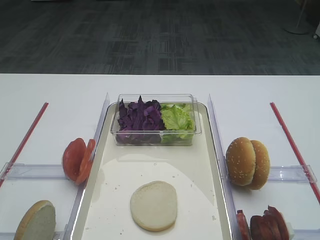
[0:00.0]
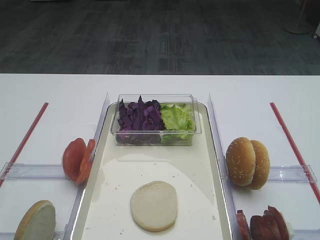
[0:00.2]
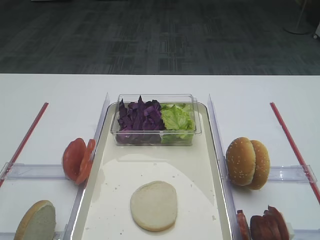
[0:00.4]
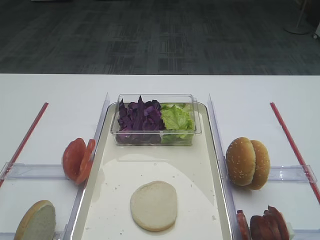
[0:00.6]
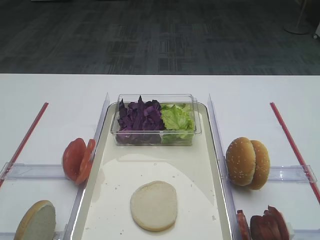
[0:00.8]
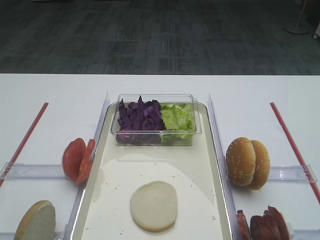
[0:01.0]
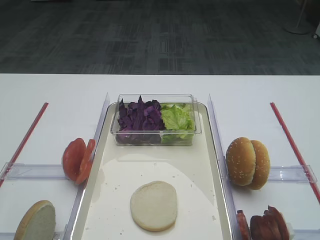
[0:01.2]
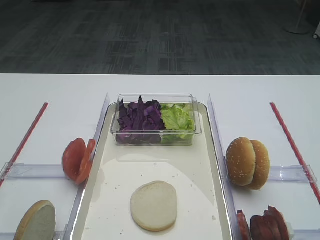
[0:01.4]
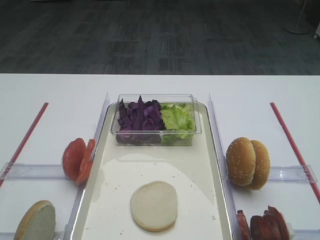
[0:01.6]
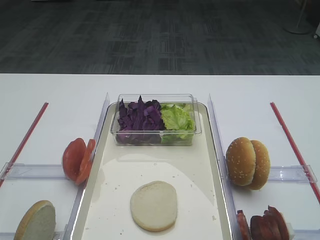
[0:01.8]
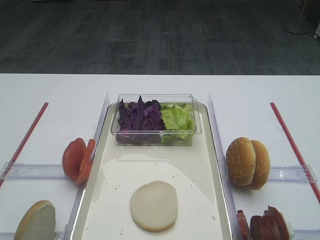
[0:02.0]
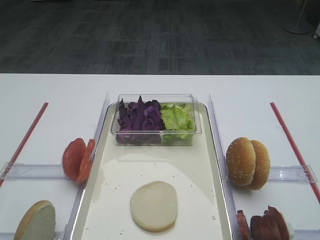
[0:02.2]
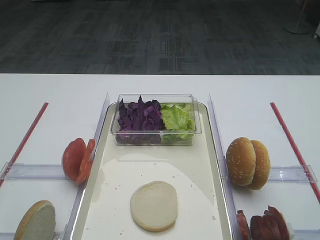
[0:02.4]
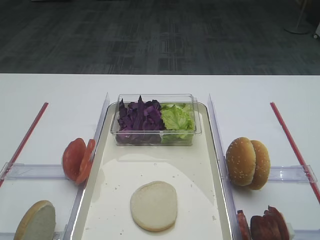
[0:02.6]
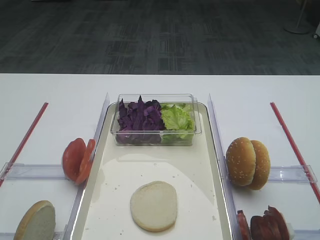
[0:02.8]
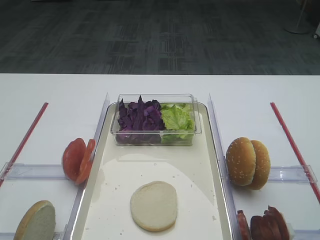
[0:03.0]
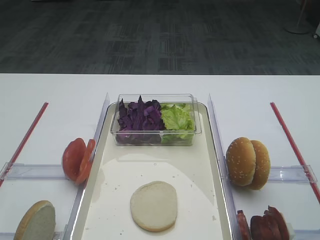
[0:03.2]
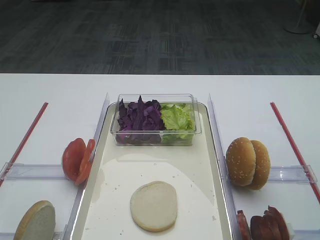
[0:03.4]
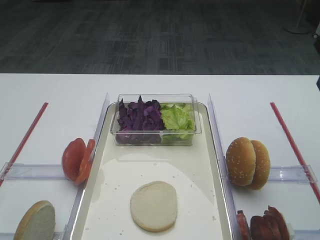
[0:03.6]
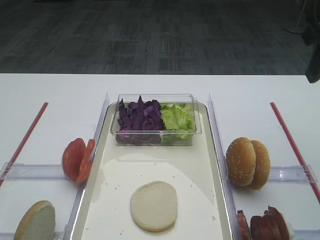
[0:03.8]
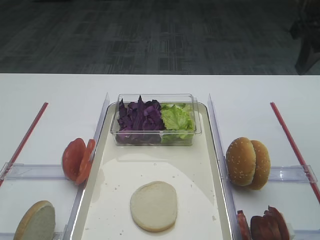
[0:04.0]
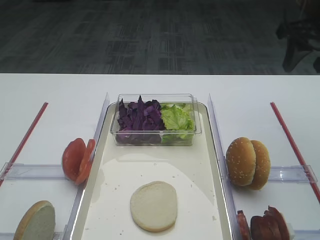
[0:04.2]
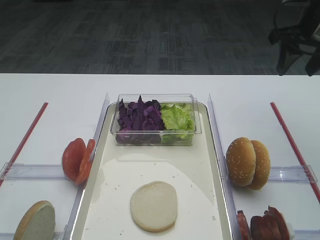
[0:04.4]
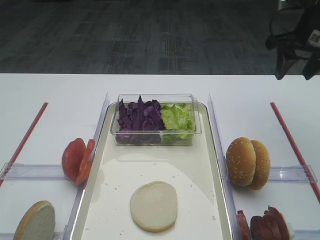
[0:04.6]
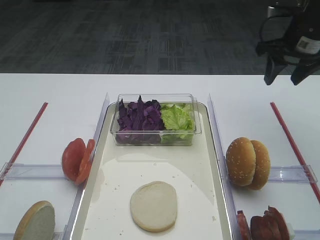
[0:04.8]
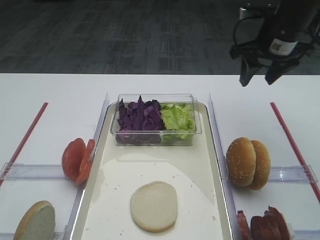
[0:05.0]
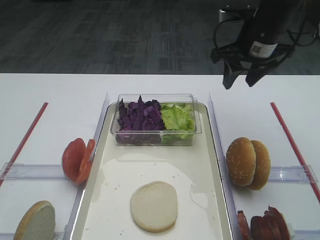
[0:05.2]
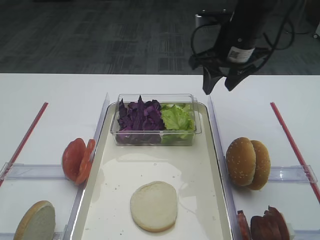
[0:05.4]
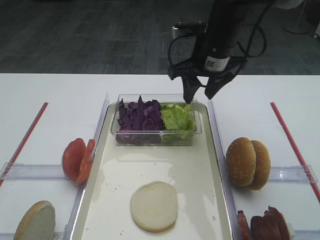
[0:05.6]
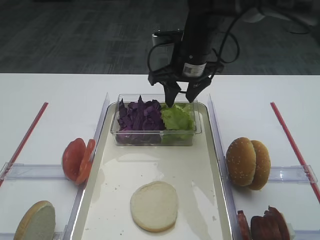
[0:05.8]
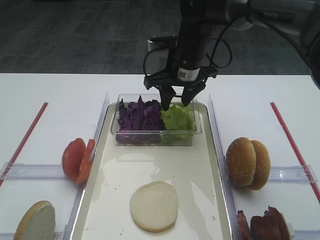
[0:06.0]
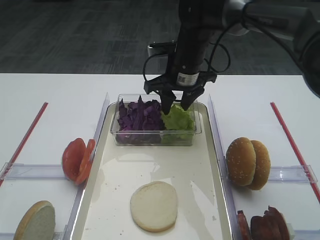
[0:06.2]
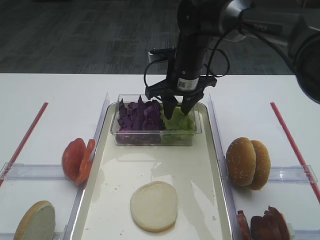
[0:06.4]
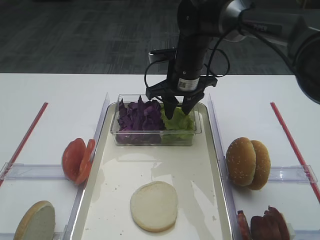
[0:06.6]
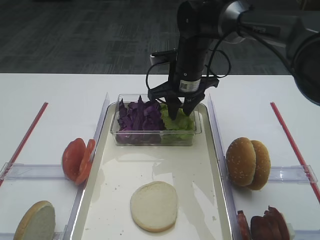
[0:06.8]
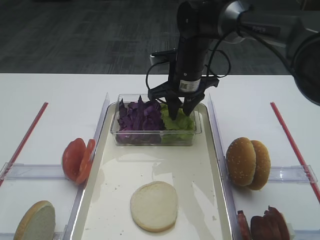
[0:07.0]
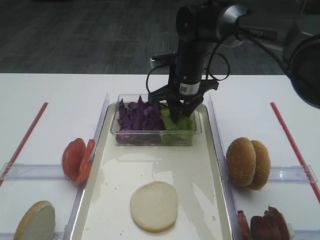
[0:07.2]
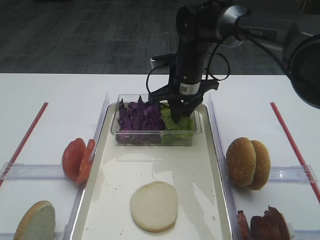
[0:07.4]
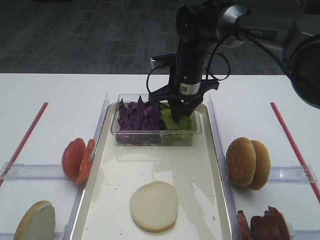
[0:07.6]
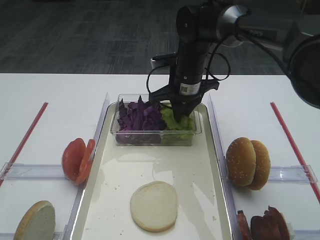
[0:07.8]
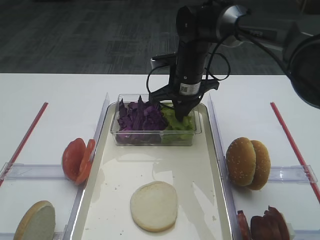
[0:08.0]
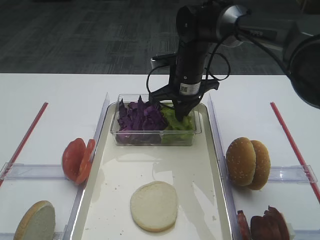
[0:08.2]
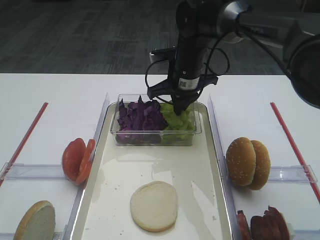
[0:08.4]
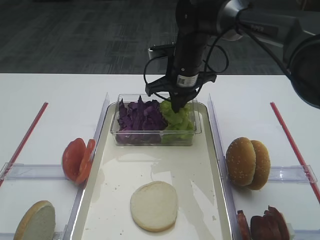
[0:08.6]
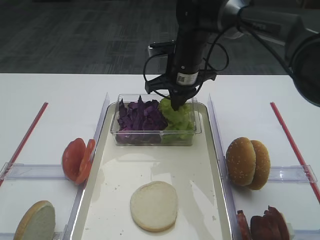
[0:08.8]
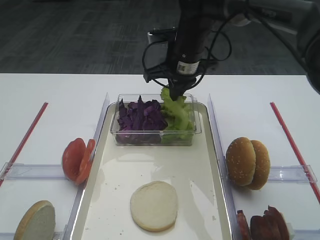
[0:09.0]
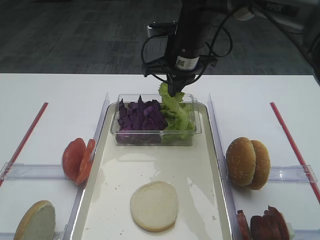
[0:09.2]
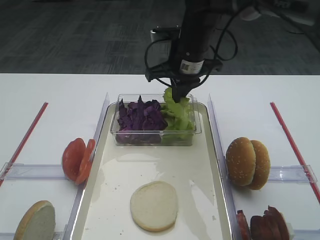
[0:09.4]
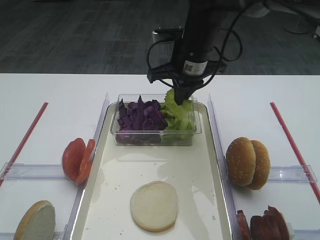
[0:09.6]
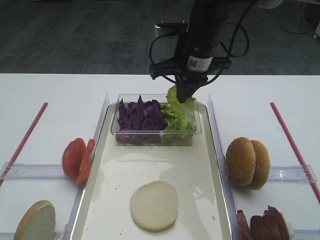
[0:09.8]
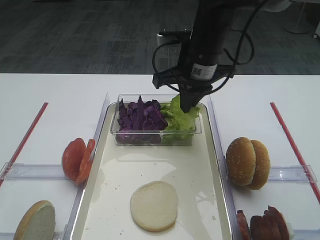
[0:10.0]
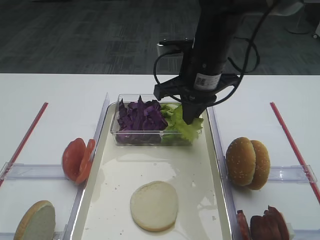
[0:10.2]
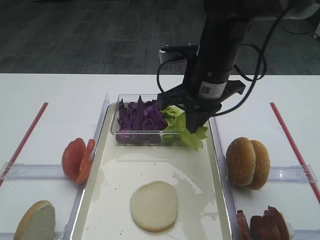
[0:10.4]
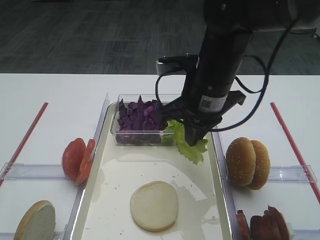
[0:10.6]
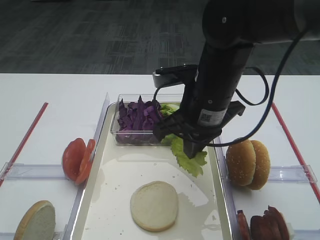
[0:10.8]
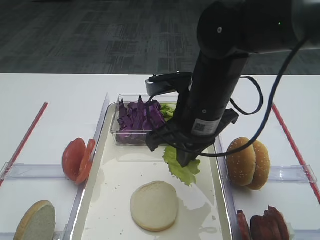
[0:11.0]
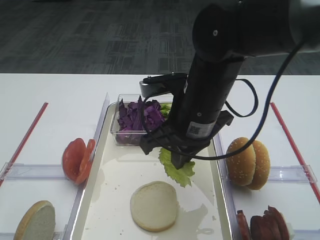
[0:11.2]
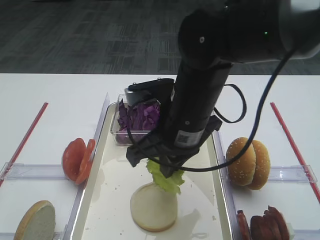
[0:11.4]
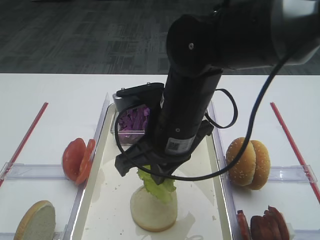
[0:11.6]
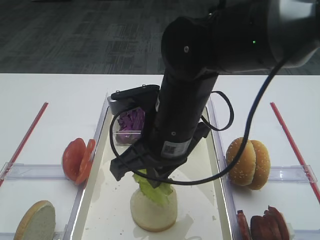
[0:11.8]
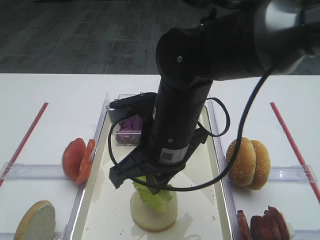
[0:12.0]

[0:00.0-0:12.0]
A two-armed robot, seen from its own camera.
Step, 0:00.0 to 0:09.2: Pick up the lettuce leaf with the right gripper.
0:03.0 to 0:04.4: The right gripper goes roughly 25 cm forward.
0:04.4 to 0:06.0: The right gripper is displaced to the left by roughly 20 cm.
0:06.0 to 0:07.6: The right gripper closes up.
0:07.6 to 0:09.0: The right gripper closes.
0:09.0 to 0:10.4: The right gripper goes approximately 10 cm backward.
0:10.4 to 0:12.0: The right gripper heads backward and to the left, covering some 10 cm.

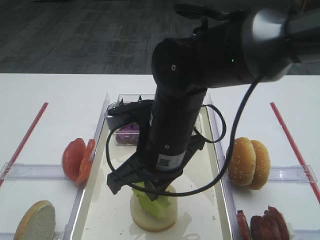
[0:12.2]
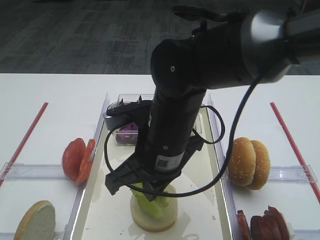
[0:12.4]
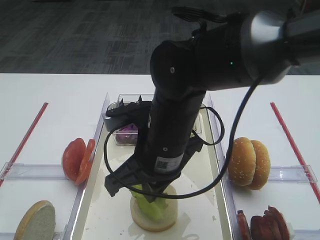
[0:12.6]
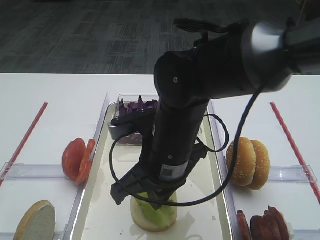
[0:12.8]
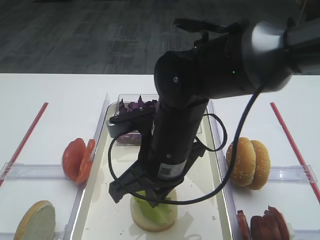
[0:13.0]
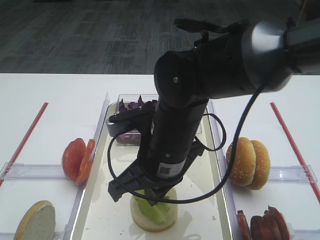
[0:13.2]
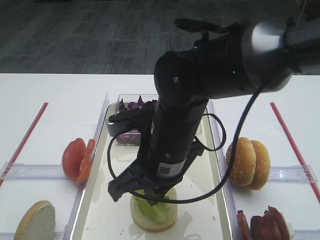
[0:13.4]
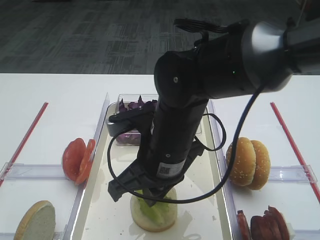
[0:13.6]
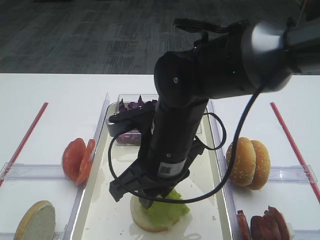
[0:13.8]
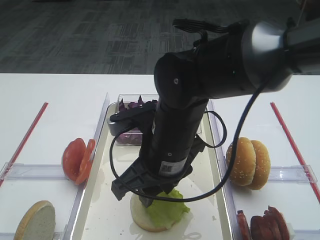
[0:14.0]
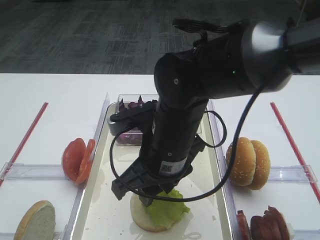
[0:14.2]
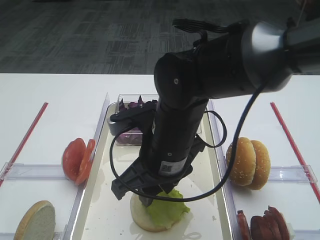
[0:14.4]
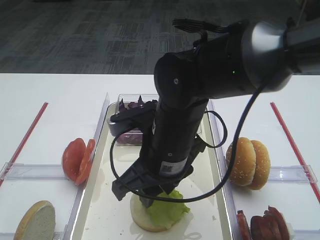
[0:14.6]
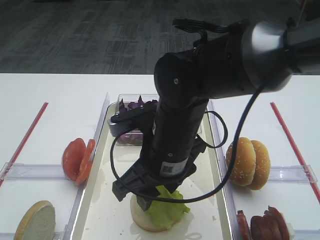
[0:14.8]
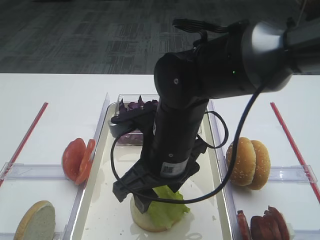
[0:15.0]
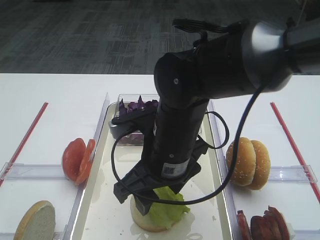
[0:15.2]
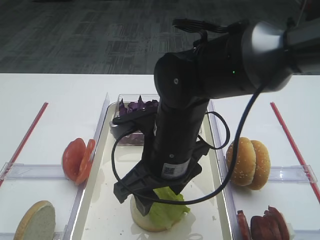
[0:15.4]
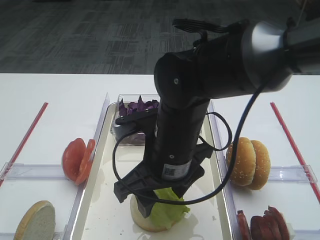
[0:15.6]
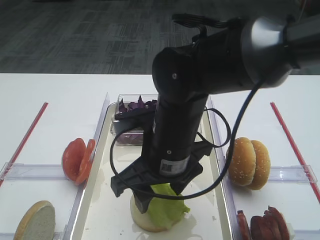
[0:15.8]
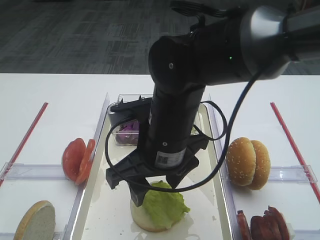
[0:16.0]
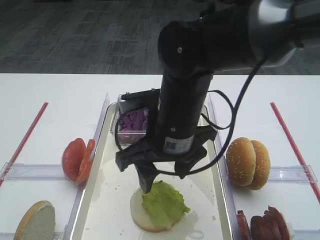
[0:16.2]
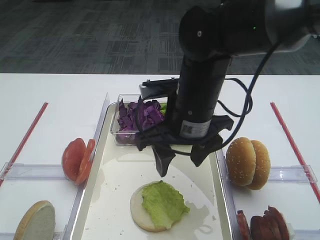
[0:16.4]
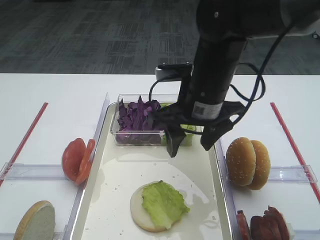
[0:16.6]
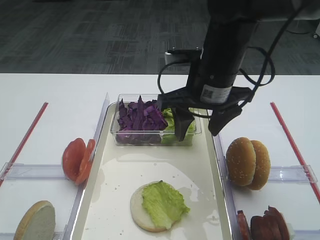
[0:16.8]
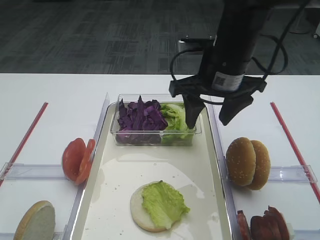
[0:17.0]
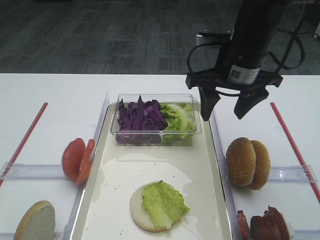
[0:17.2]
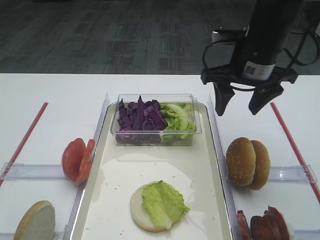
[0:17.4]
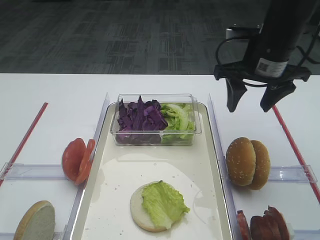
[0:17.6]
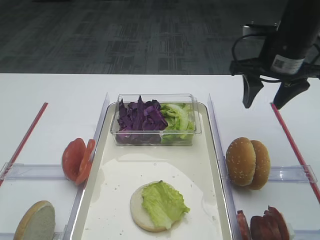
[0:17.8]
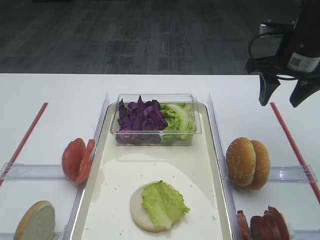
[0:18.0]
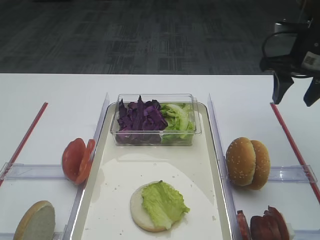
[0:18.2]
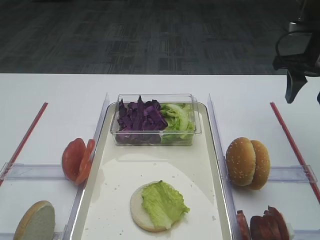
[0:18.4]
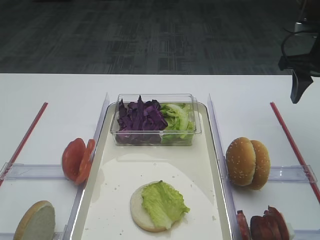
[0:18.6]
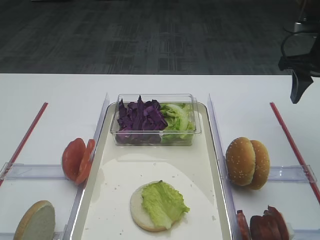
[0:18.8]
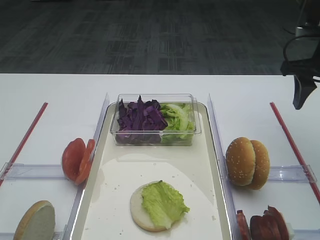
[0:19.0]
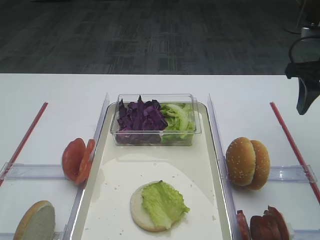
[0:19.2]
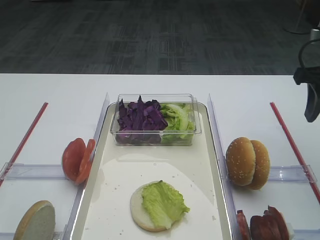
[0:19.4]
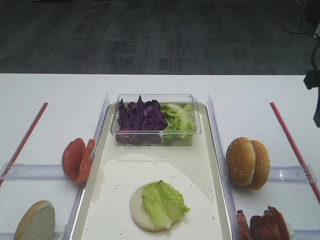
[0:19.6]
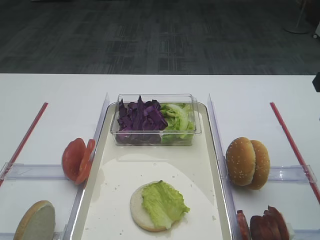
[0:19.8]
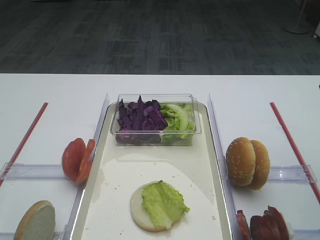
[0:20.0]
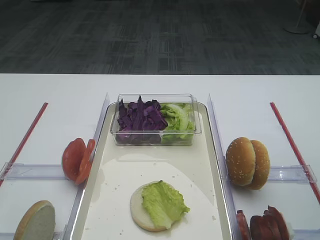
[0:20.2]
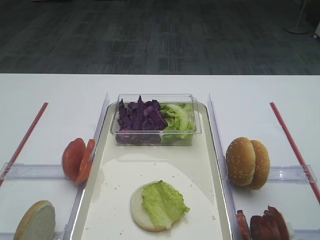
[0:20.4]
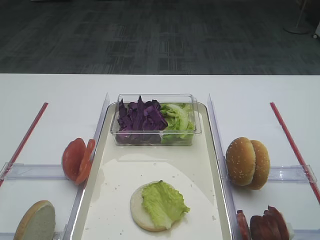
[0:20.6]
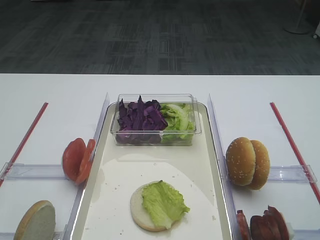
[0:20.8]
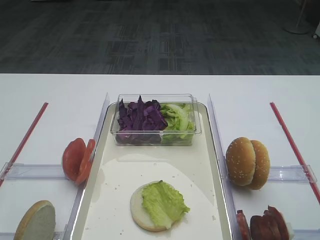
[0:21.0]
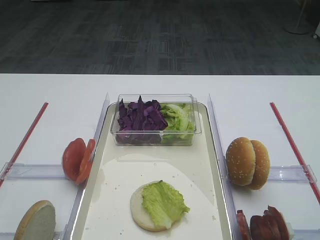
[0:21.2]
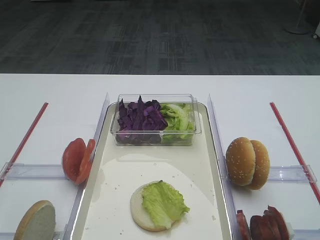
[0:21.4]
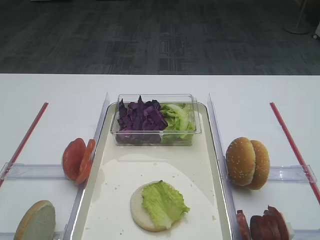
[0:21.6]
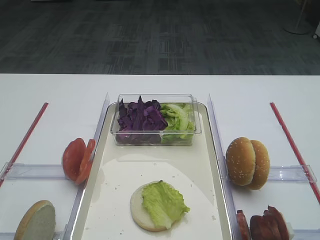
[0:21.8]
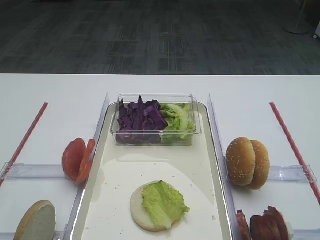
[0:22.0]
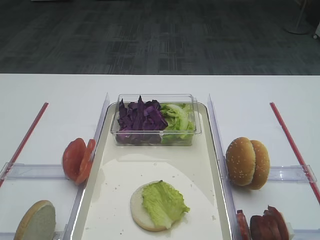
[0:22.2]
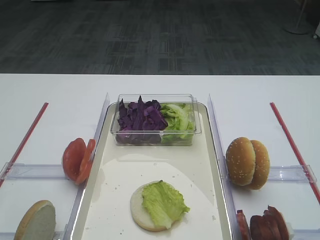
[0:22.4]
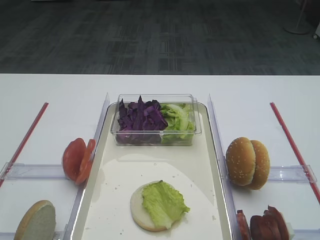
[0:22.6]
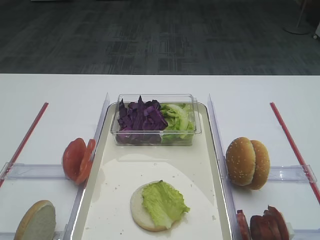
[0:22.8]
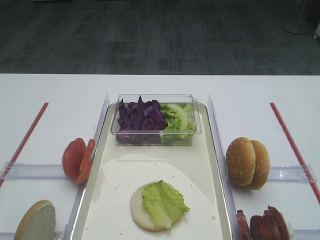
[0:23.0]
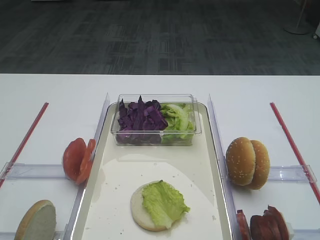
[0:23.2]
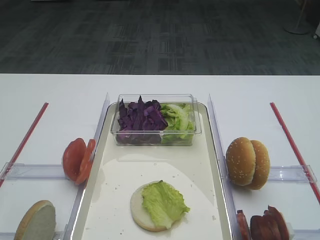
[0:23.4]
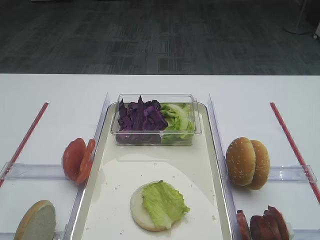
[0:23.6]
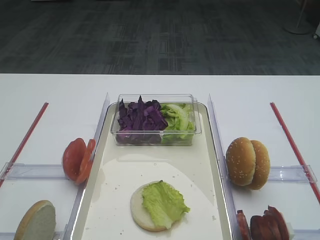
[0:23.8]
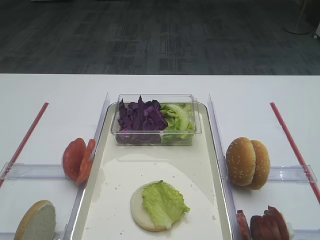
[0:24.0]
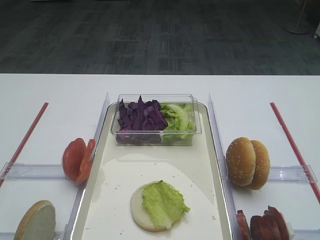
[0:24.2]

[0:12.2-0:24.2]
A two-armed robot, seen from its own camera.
Step, 0:12.2 to 0:16.0: Place the lettuce leaf on the bread slice with the right gripper.
0:12.2 to 0:13.8: The right gripper opens its fingers.
0:13.8 to 0:15.2: The right gripper opens its fingers.
0:15.2 to 0:16.6: The right gripper is displaced forward and to the right by approximately 10 cm.
0:16.6 to 0:18.2: The right gripper travels to the right by about 20 cm.
0:18.2 to 0:19.8: The right gripper is displaced backward by roughly 10 cm.
